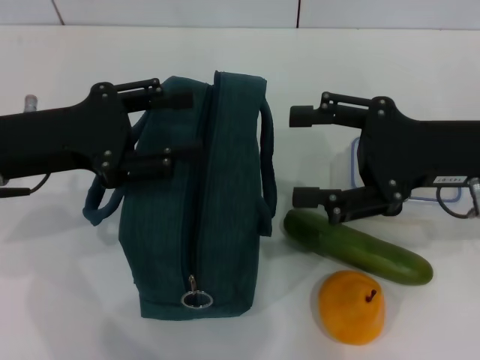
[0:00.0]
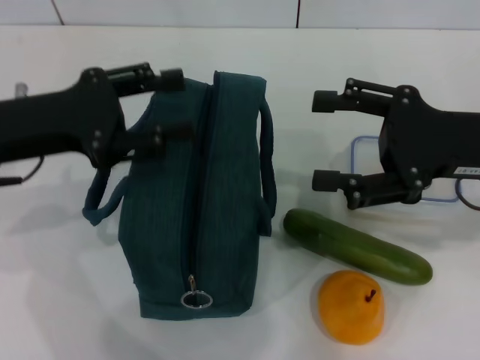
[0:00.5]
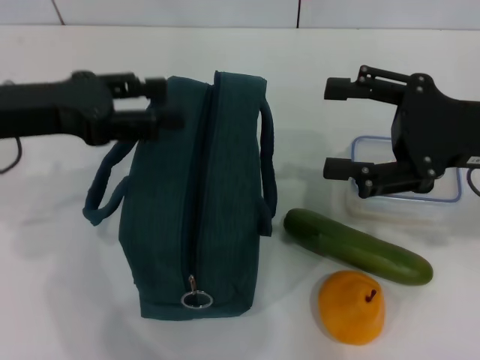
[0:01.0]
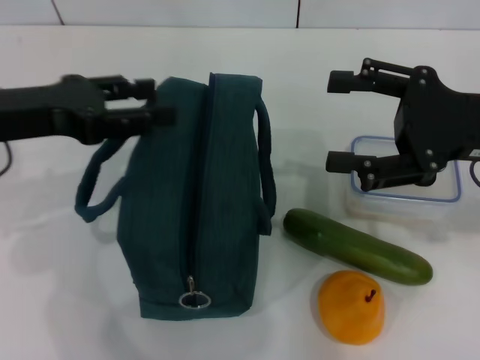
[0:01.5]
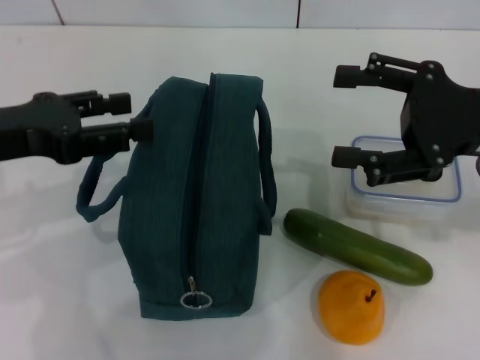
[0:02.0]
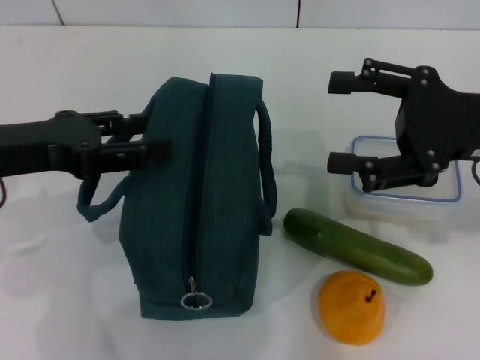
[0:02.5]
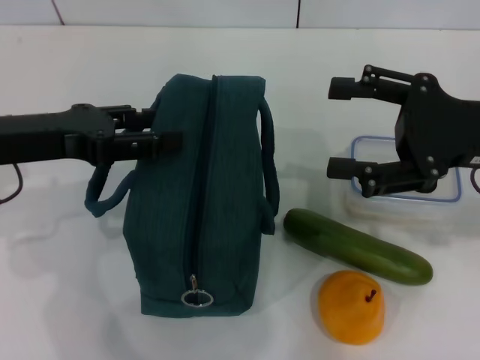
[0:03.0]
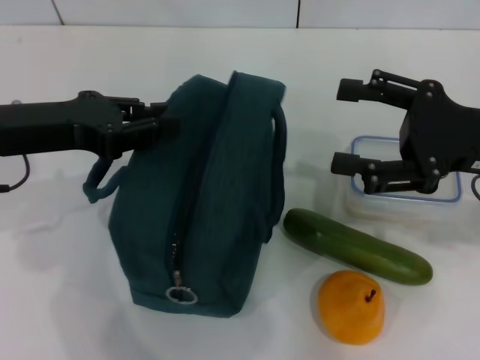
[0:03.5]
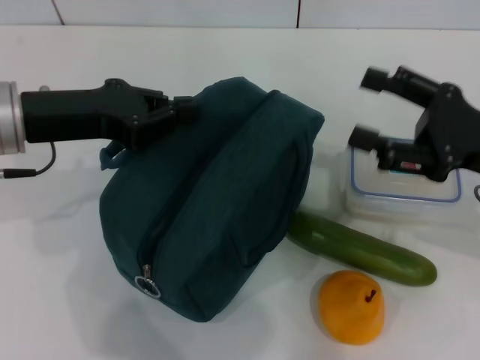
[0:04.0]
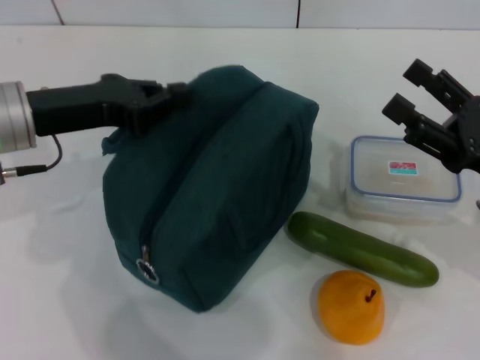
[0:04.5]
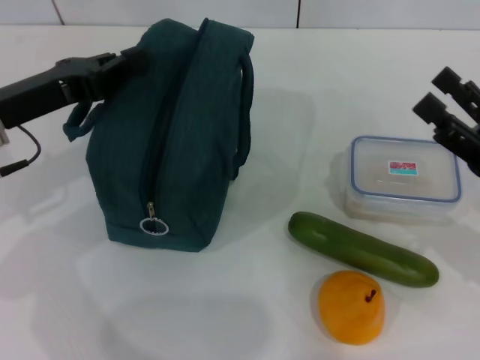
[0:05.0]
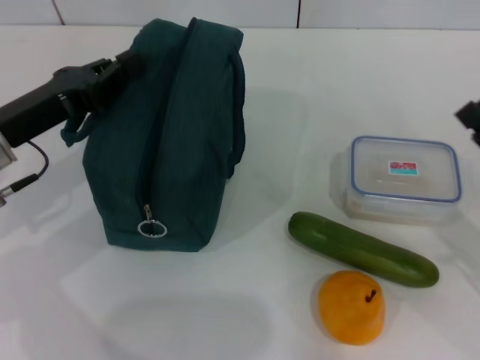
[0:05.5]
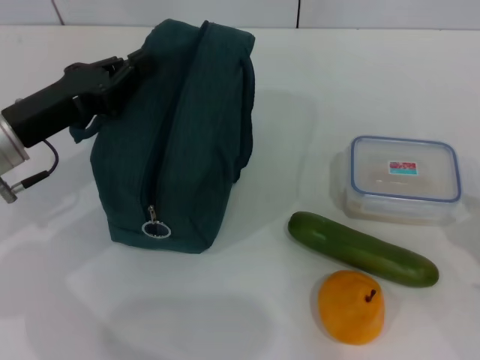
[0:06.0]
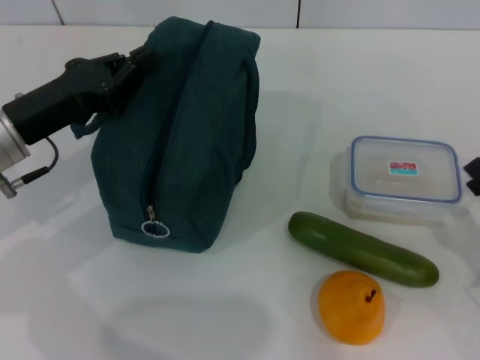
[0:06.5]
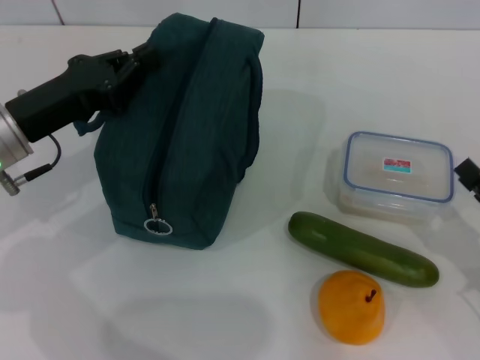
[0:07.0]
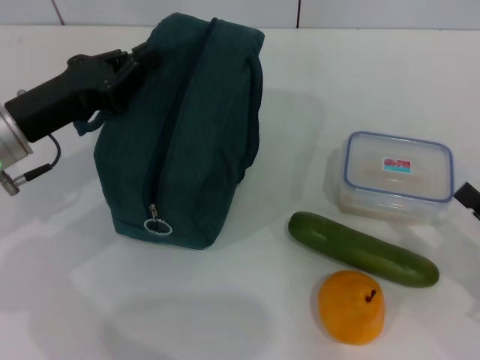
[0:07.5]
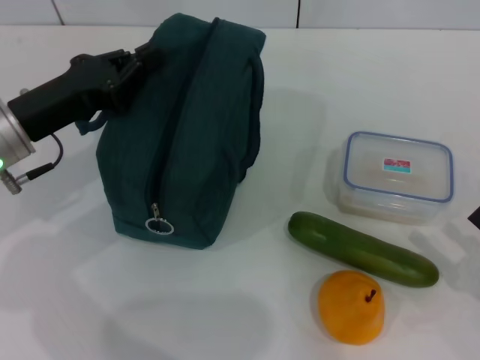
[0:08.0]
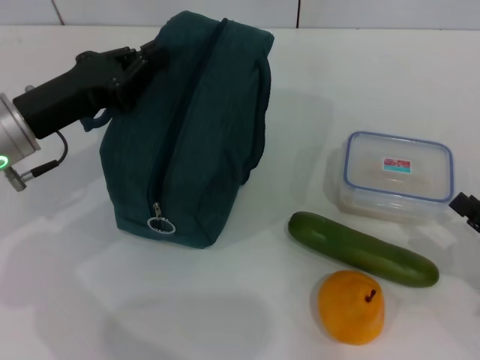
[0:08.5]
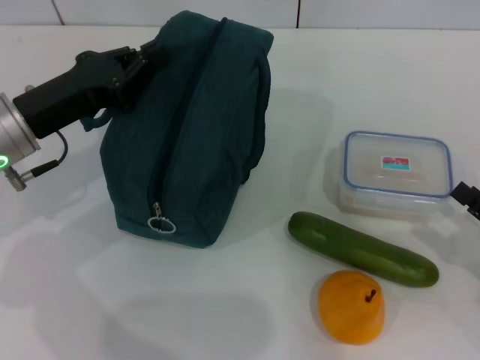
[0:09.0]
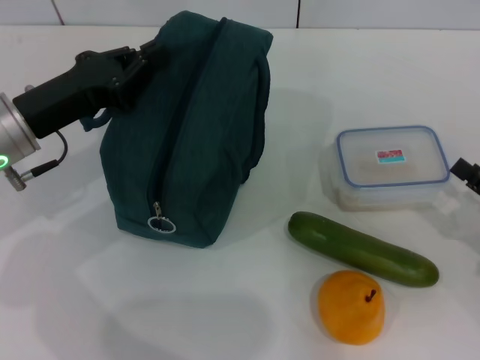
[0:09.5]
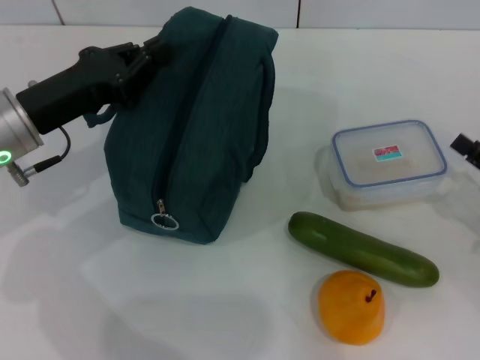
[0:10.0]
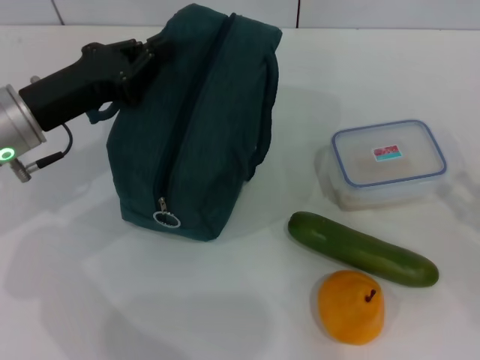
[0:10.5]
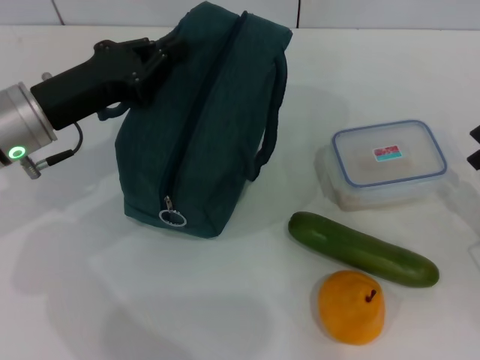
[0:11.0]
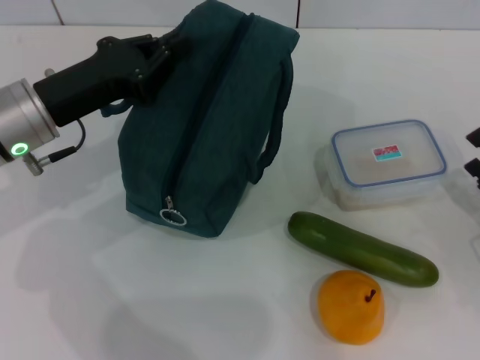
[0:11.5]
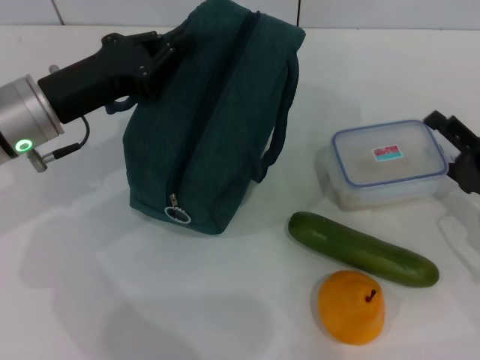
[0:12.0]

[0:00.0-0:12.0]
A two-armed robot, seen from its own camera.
Step, 0:00.0 to 0:04.0: Hold the lunch bag with your left hand.
0:02.0 to 0:04.0: The left gripper shifts by approximately 5 cm, and closes; the right gripper shifts about 5 cm downward.
0:04.0 to 0:06.0: The right gripper moves backward, downward and to the right, about 15 cm; the left gripper heads downward, covering approximately 5 cm.
0:06.0 to 0:08.0: The grippers move only a little.
0:08.0 to 0:10.0: The right gripper heads forward, covering approximately 10 cm.
0:10.0 to 0:12.0: The right gripper changes place by about 5 cm.

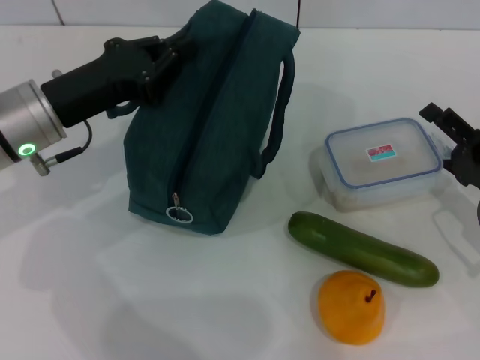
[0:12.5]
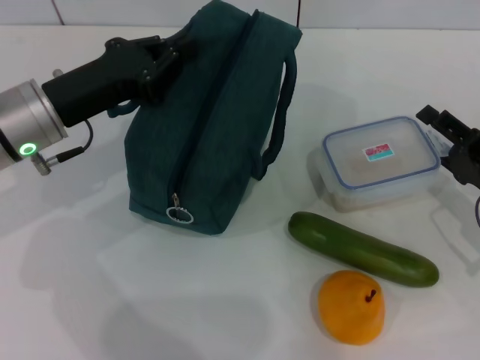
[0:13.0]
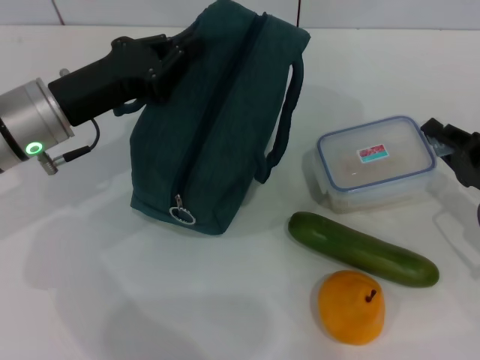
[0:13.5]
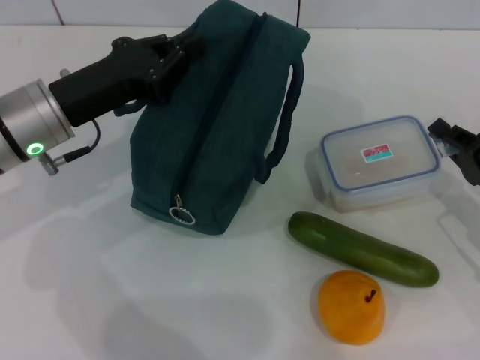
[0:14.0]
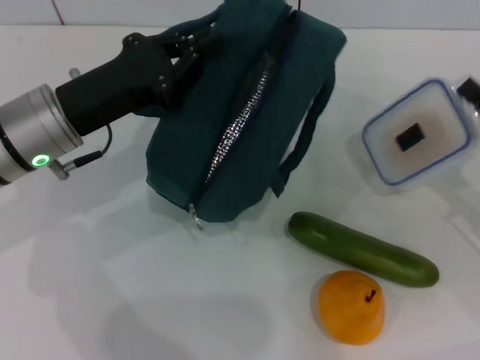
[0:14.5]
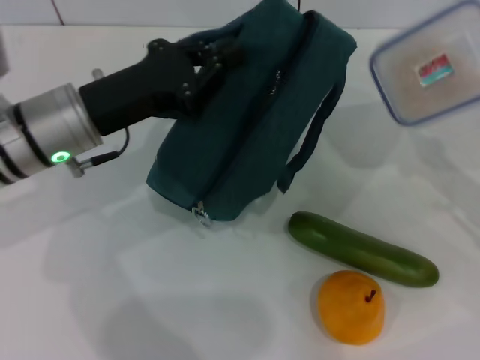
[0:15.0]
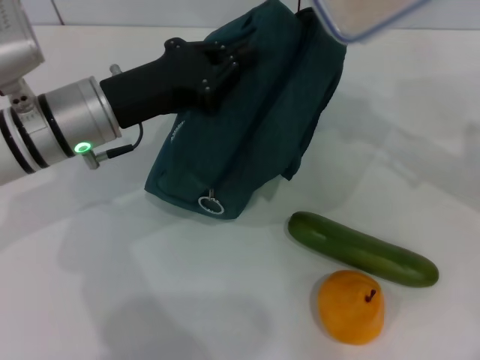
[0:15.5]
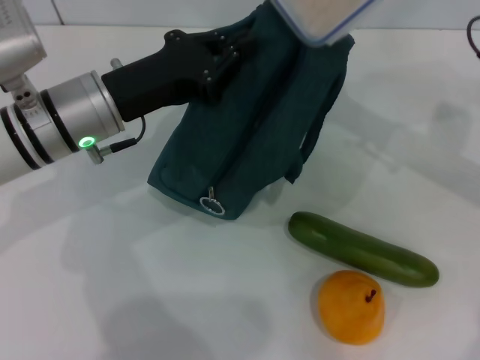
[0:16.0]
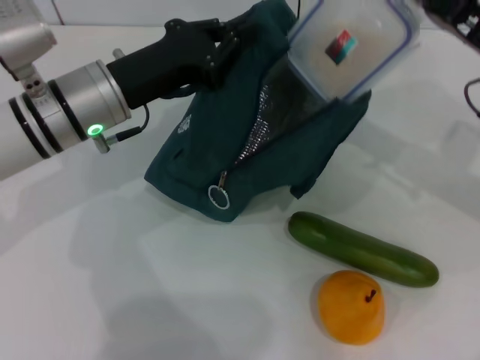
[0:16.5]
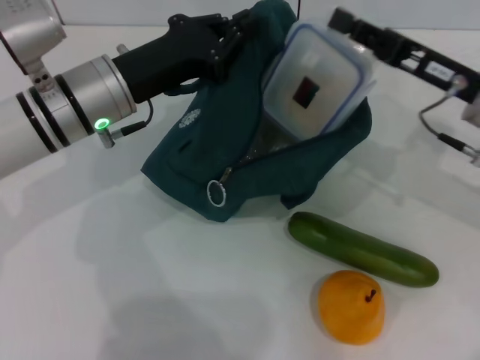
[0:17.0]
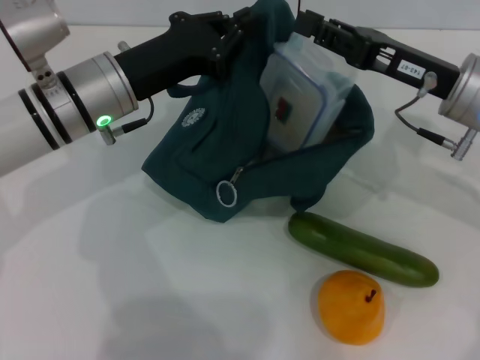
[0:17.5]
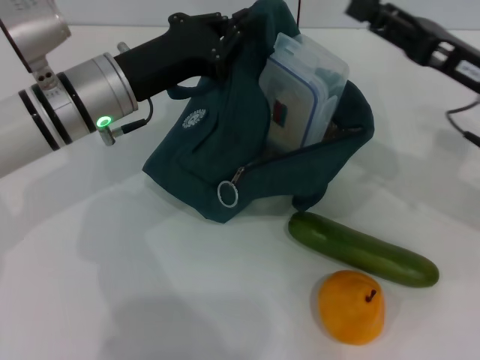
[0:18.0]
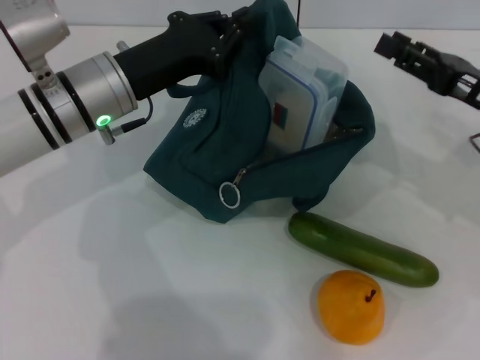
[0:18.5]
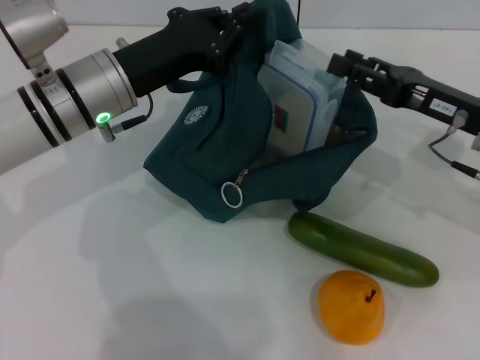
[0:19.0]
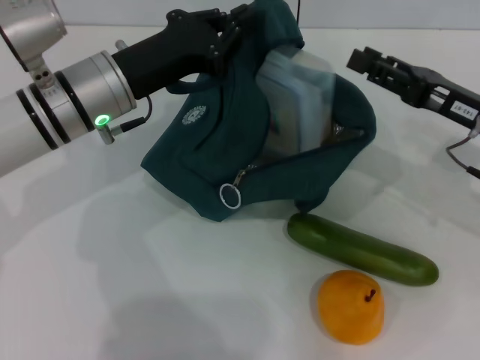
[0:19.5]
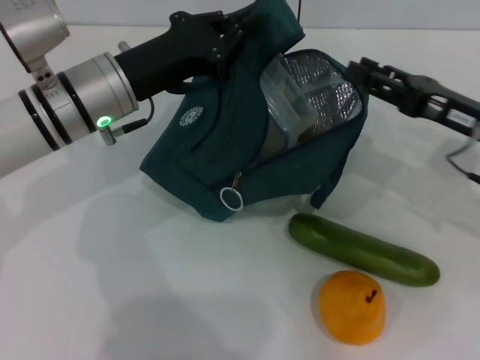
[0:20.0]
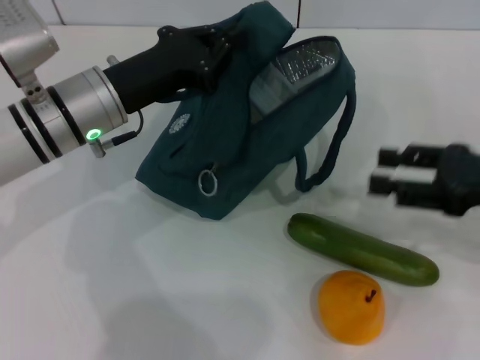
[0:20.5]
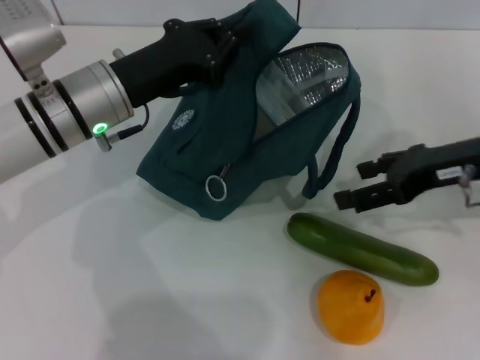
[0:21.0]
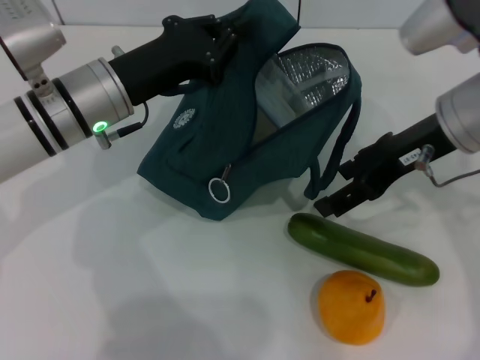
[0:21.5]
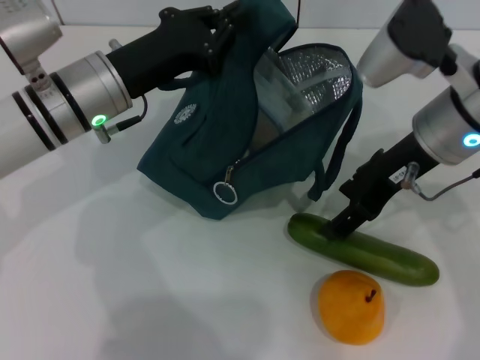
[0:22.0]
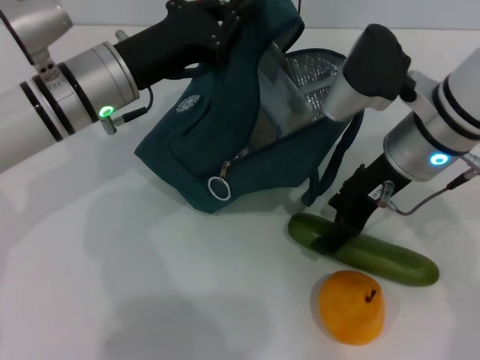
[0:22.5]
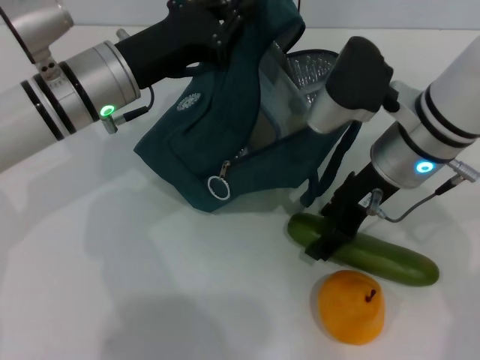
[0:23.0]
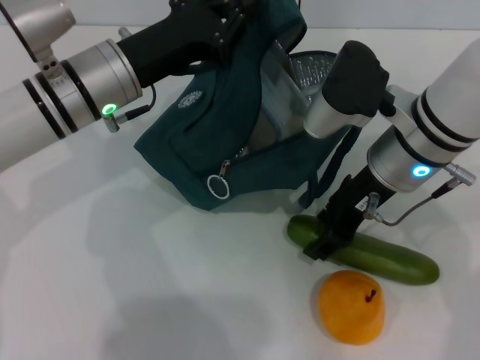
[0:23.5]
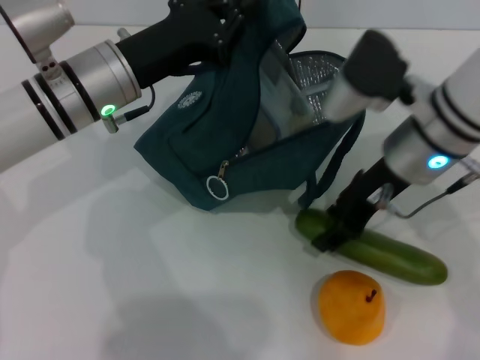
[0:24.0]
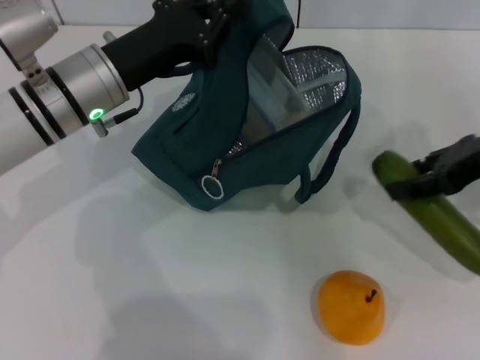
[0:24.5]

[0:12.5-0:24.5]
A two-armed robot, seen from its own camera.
Step, 0:14.0 to 0:19.5: Place the lunch box into the lunch bag with your right hand.
Step, 0:20.0 to 0:23.5: Pick up the cucumber with your right hand.
0:12.5 to 0:14.5: The right gripper closes up.
0:14.5 to 0:16.5: The right gripper goes about 15 cm upward, forward and to the left.
0:16.5 to 0:18.5: The right gripper opens up.
0:18.5 to 0:20.5: The right gripper goes some 5 cm backward.
0:20.5 to 0:22.5: The right gripper goes roughly 15 cm to the left and forward.
0:22.5 to 0:24.5: The right gripper heads to the right, covering roughly 10 cm.

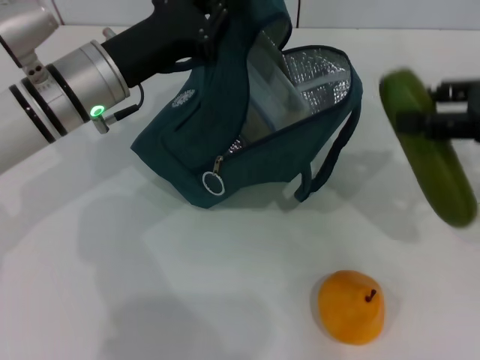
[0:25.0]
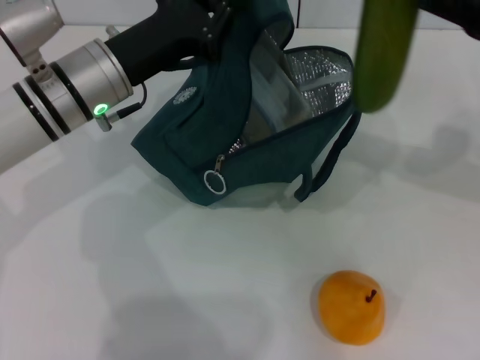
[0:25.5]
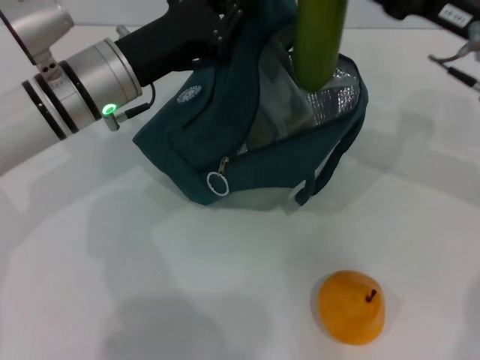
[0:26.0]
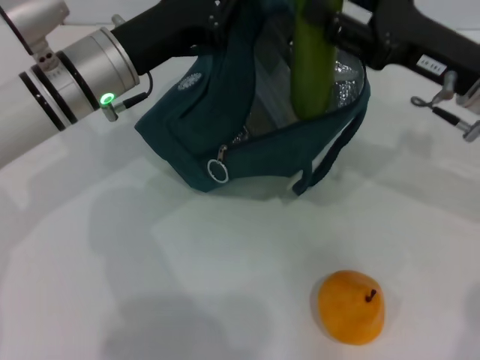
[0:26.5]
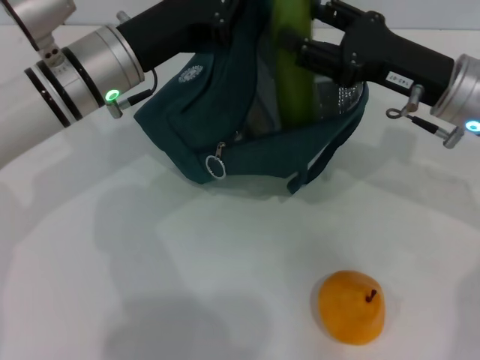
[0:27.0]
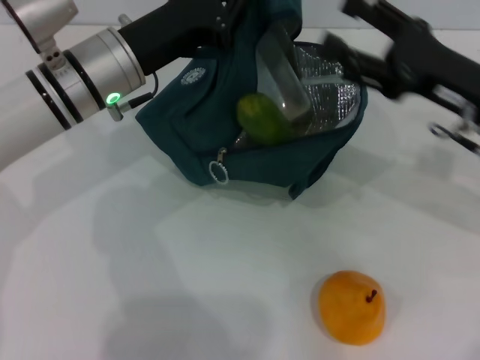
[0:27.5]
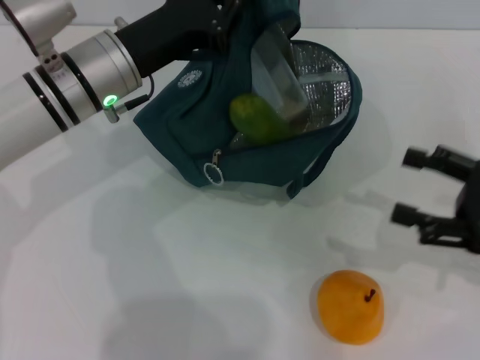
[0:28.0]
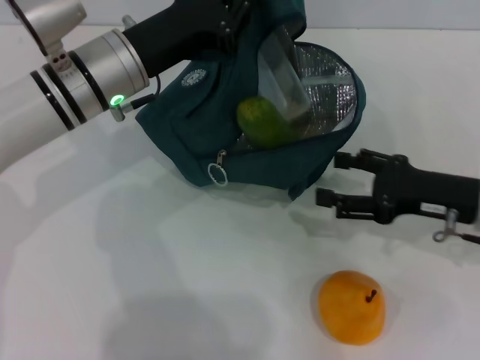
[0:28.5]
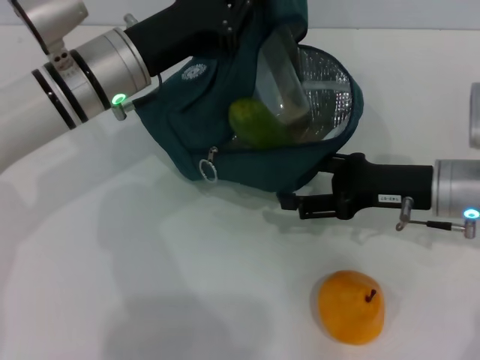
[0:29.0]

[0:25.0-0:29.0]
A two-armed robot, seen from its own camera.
Step, 0:25.0 to 0:27.0: Put the cucumber into the lunch bag with your right hand.
0:25.0 to 0:27.0: The right gripper is displaced to the left, downward and forward by about 15 cm.
0:27.0 to 0:29.0: The right gripper travels downward by some 5 cm, and reaches approximately 10 cm backward, then returns.
